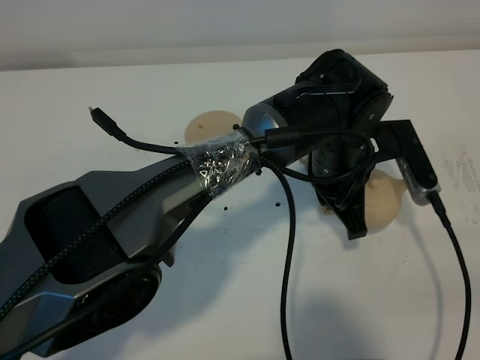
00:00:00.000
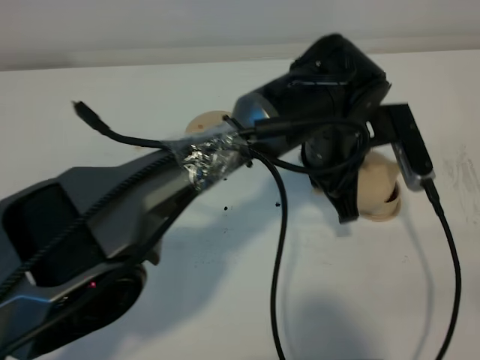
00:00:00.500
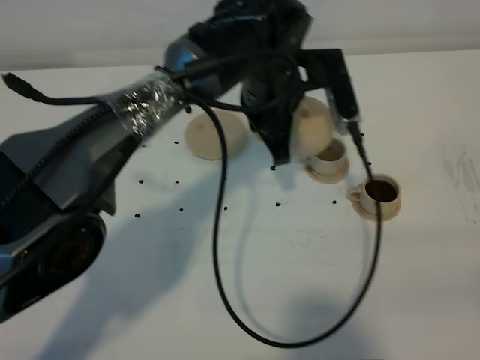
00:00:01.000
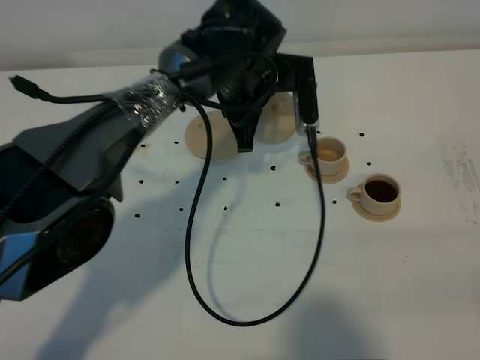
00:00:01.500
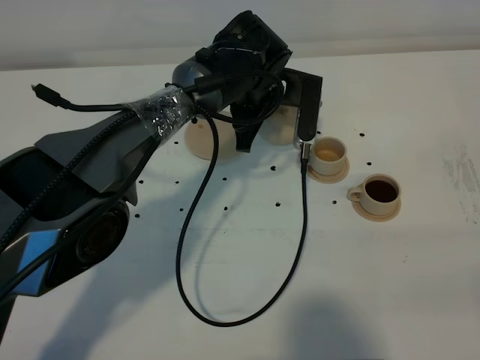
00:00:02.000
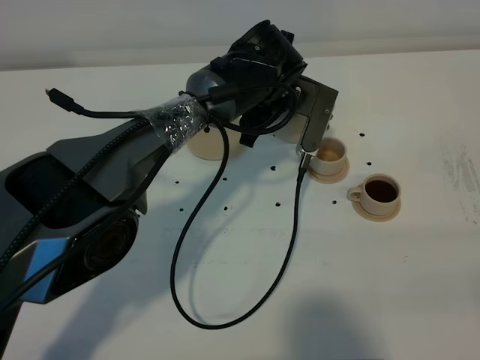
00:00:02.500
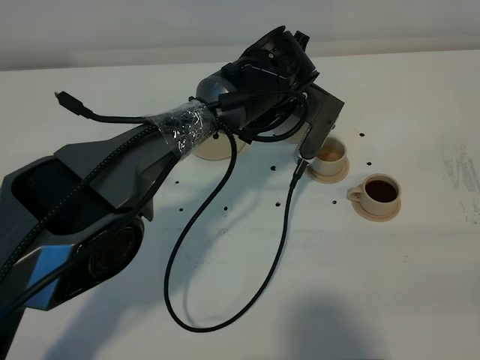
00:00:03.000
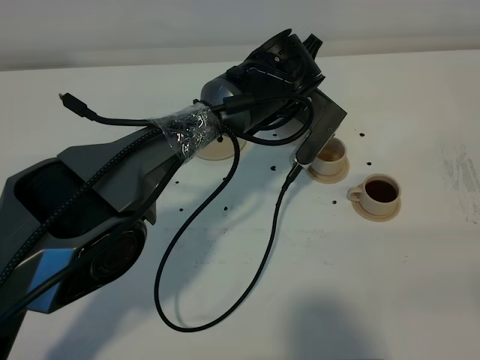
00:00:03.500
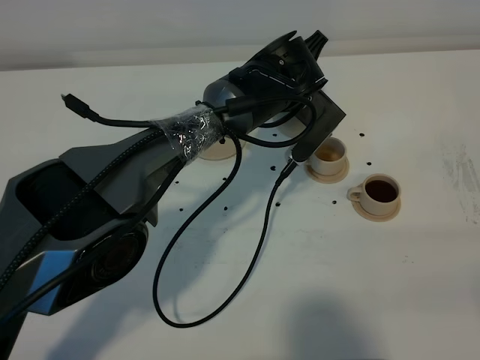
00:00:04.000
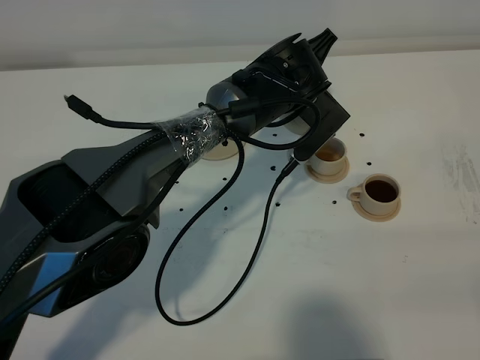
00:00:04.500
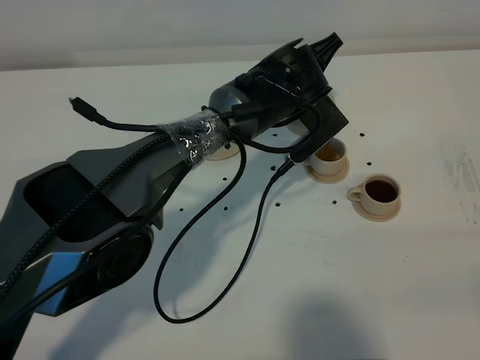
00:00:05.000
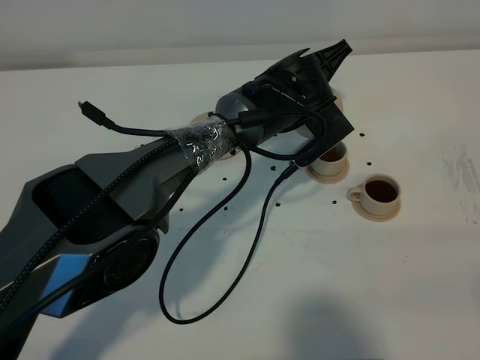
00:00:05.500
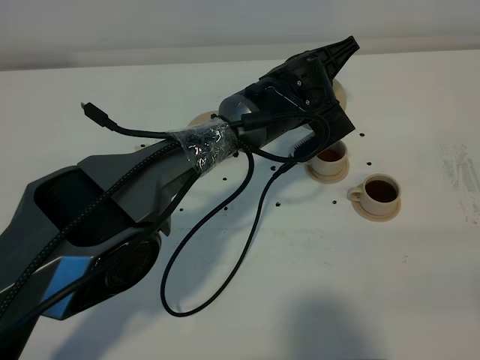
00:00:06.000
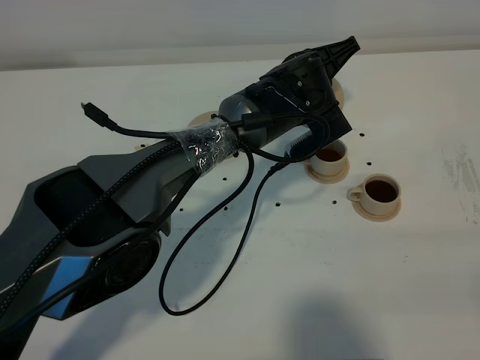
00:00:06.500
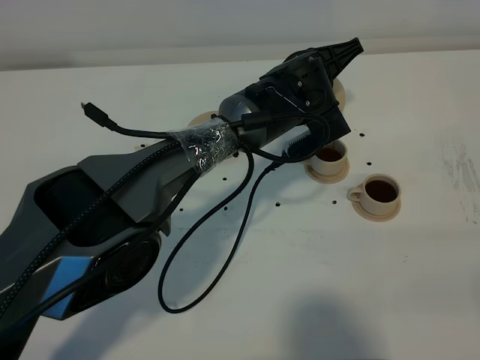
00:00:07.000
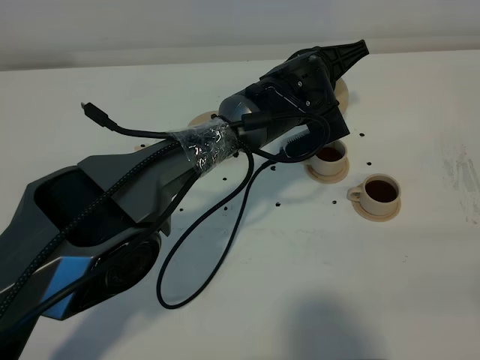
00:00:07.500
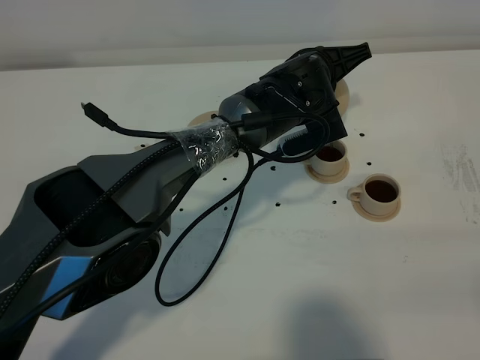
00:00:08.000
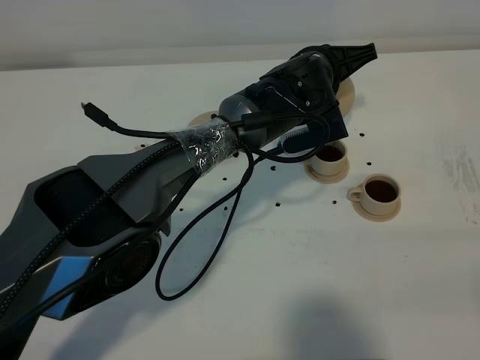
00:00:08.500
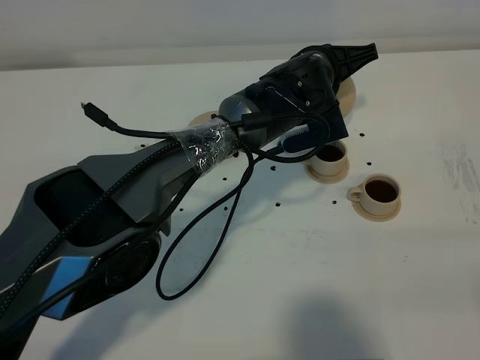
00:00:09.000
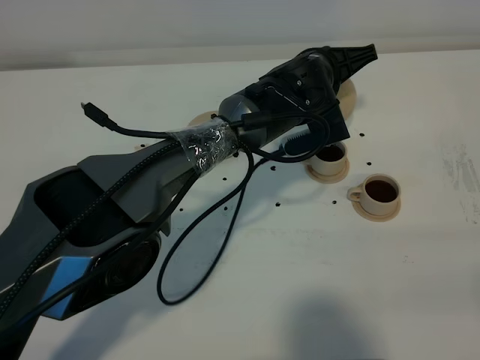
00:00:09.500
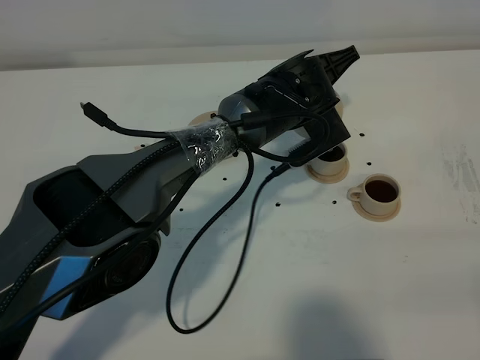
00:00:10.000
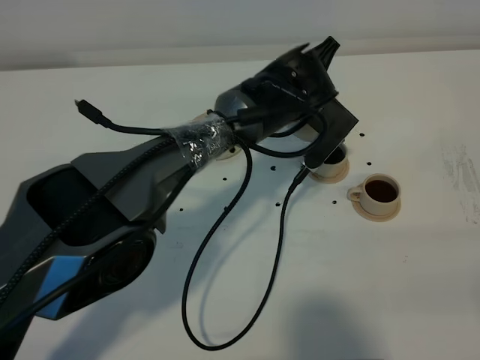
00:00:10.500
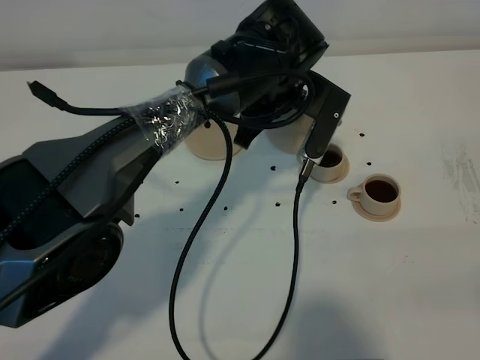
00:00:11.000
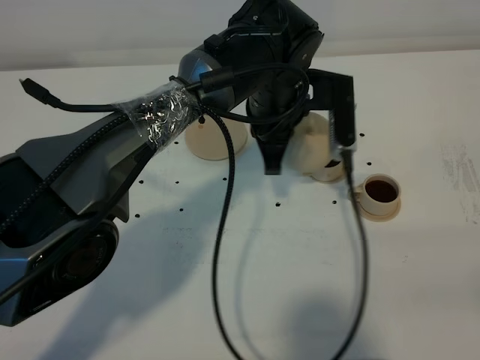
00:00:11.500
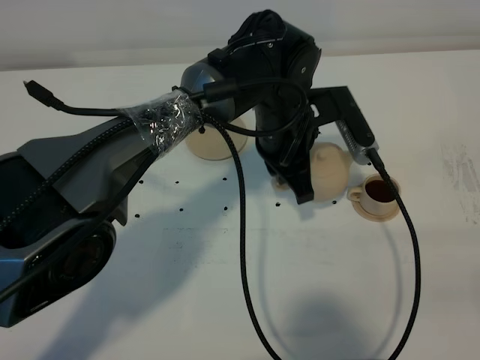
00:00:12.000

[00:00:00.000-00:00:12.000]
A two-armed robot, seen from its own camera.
Task of the whole recording: grasp the brown teapot and pour the tea into the two brown teacups one by one, put the brown teapot back in its original place.
Step, 00:00:00.000 to 00:00:10.000: Pour tea into the teacup with the left gripper.
00:00:00.000 to 00:00:02.000: The left gripper is displaced forward and to the left by some 15 cm.
00:00:04.000 to 00:00:06.000: There are only small adjustments of the grippers.
00:00:06.000 to 00:00:10.000: There are only small adjustments of the grippers.
00:00:10.000 to 00:00:12.000: The left gripper is displaced backward by about 5 cm.

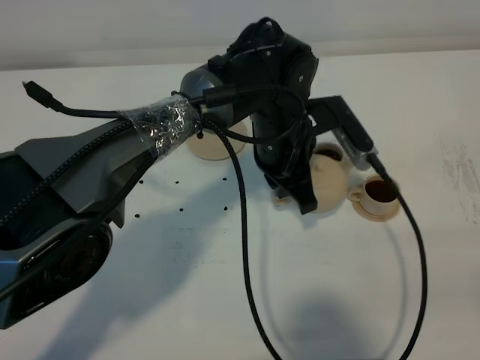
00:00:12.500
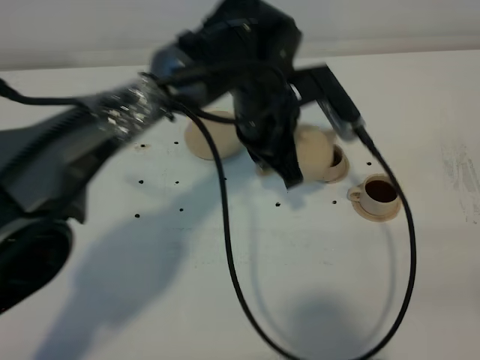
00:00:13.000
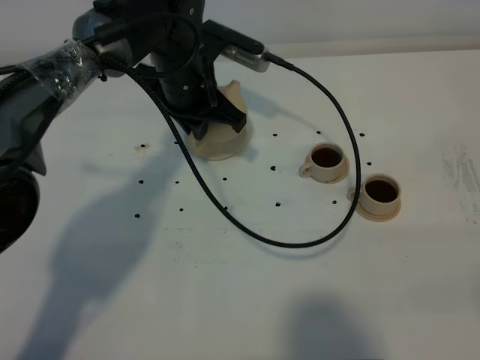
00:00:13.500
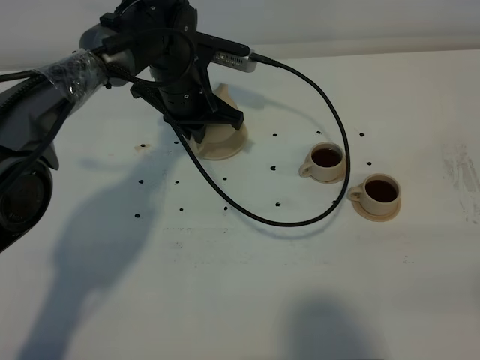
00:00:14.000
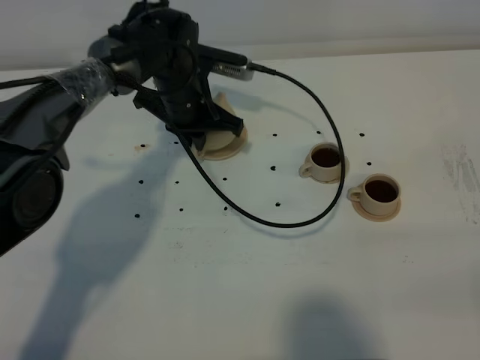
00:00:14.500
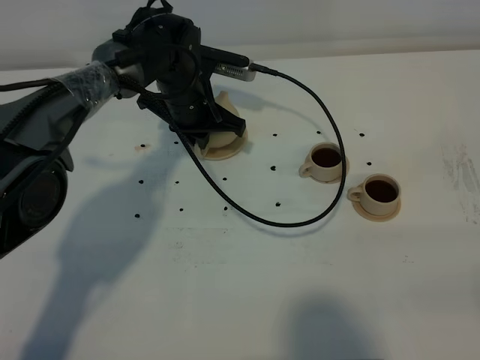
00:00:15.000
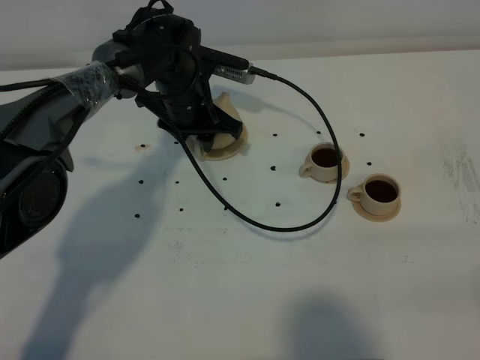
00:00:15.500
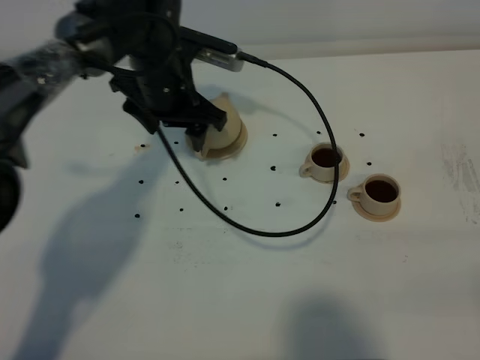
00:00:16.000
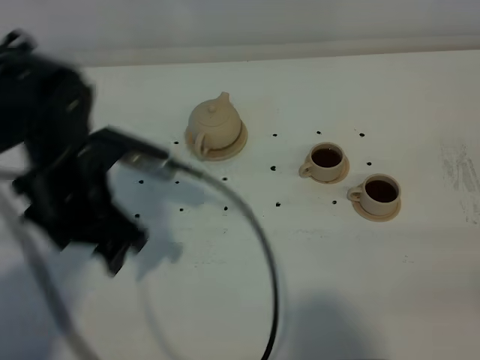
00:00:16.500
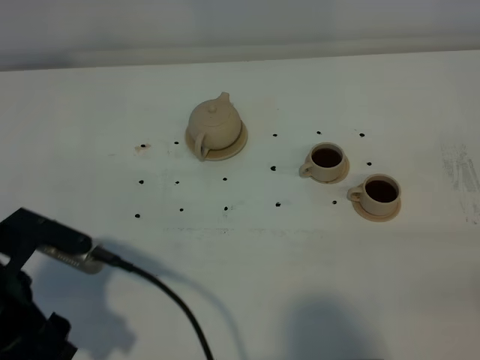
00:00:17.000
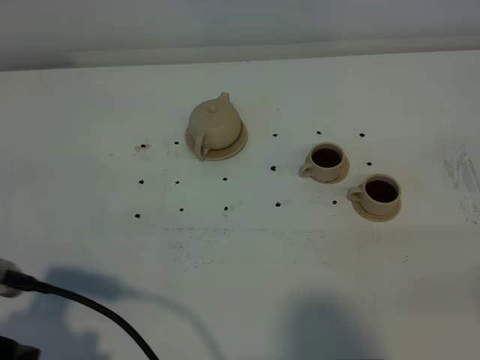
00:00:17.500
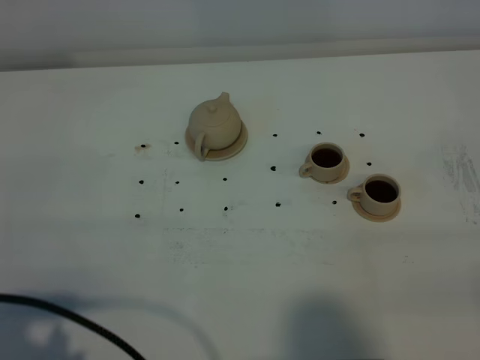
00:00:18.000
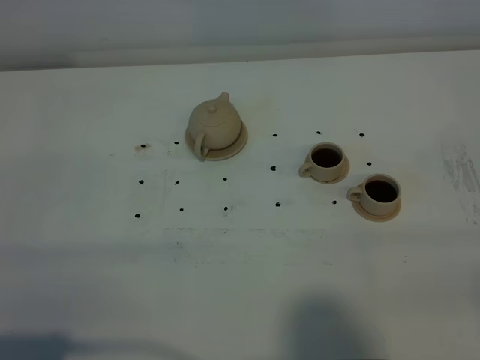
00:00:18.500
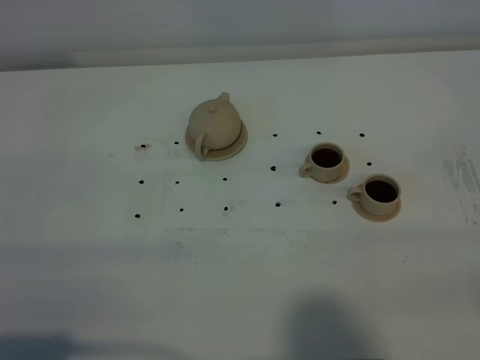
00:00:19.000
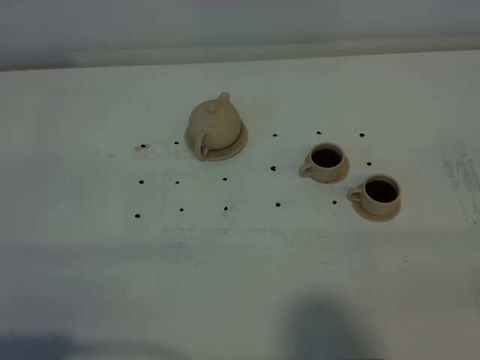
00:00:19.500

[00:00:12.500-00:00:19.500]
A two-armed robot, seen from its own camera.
Task of the whole recording: grasp the brown teapot and pour the tea into the two brown teacups one by one, put the brown teapot back in its original place.
00:00:12.500 to 00:00:14.500: The left gripper is displaced to the left and forward by roughly 15 cm.
00:00:14.500 to 00:00:16.000: The left gripper goes some 5 cm upward, and opens up.
00:00:16.000 to 00:00:17.500: The left gripper is displaced backward and to the left by about 35 cm.
00:00:17.500 to 00:00:19.500: The left gripper goes about 10 cm backward.

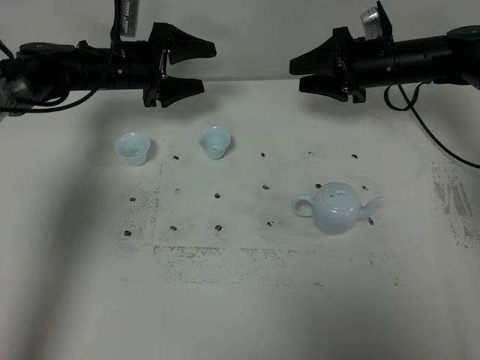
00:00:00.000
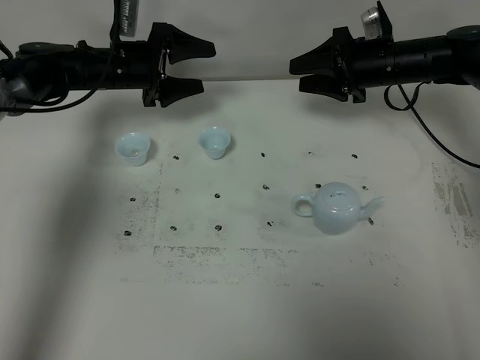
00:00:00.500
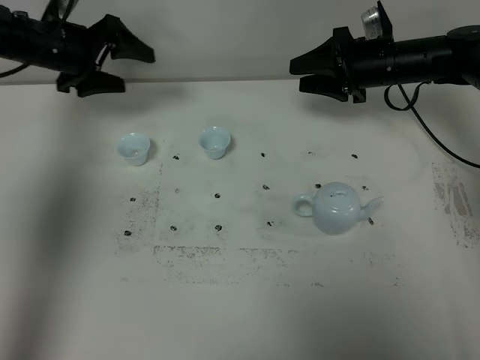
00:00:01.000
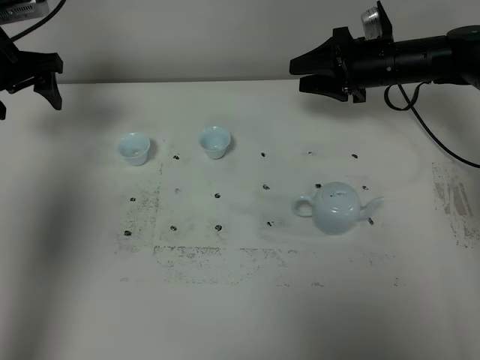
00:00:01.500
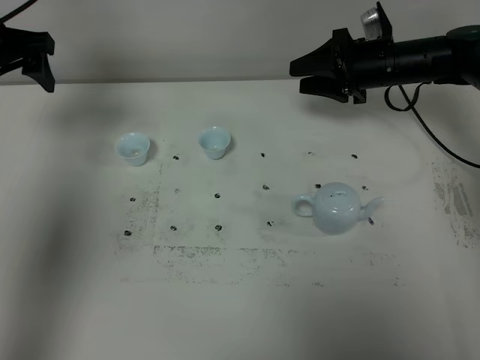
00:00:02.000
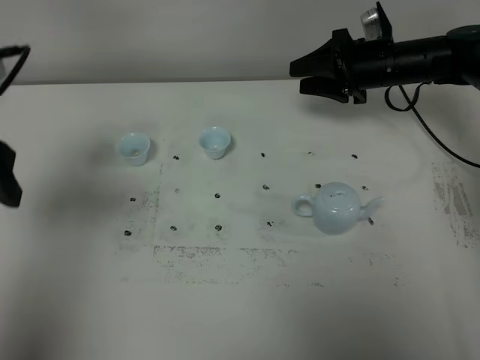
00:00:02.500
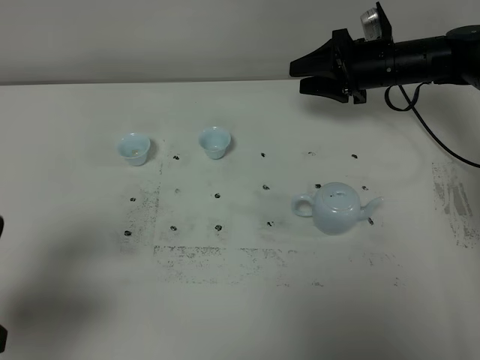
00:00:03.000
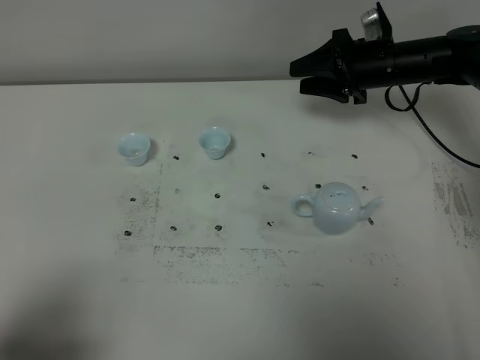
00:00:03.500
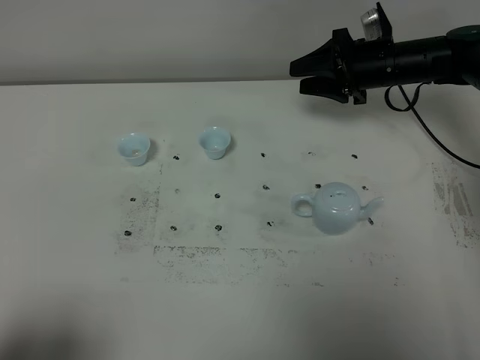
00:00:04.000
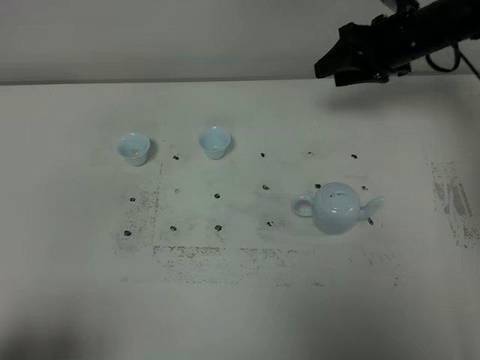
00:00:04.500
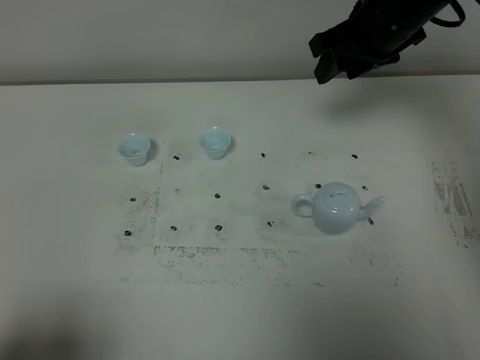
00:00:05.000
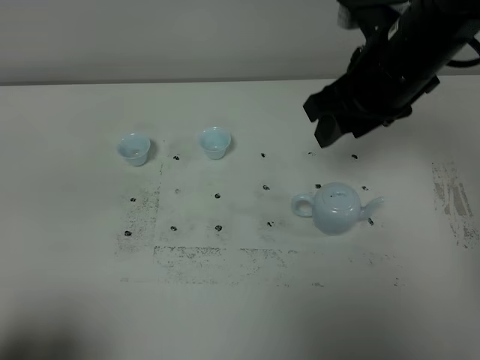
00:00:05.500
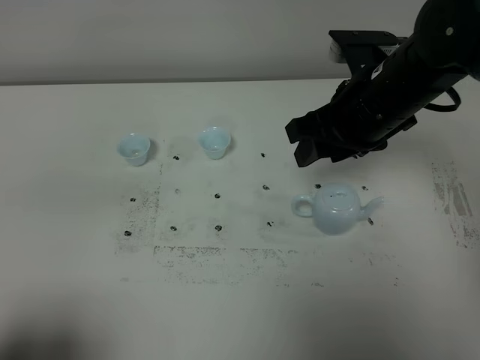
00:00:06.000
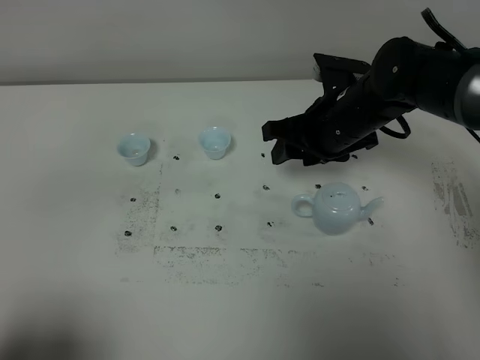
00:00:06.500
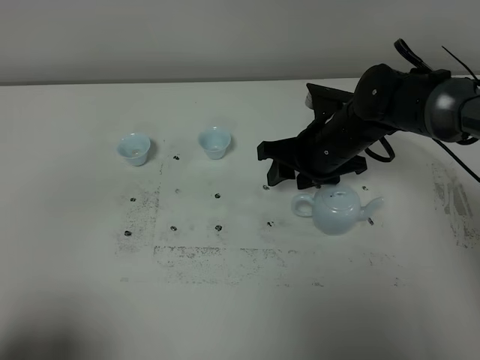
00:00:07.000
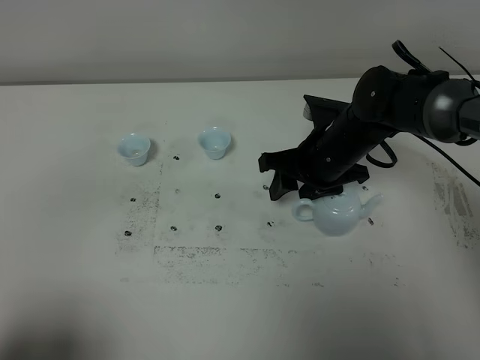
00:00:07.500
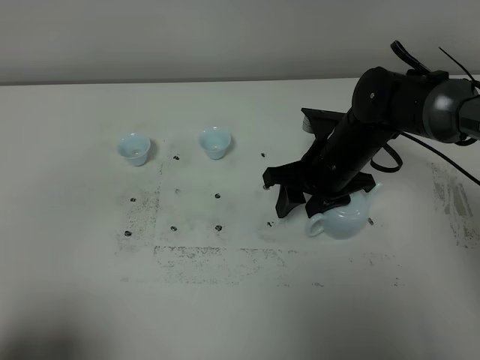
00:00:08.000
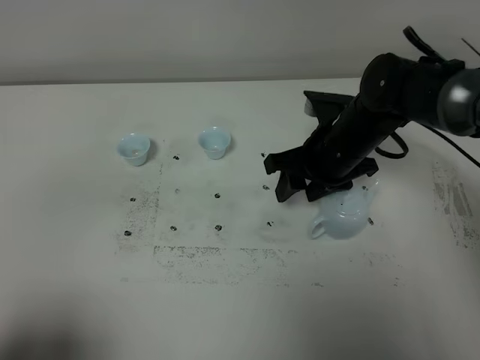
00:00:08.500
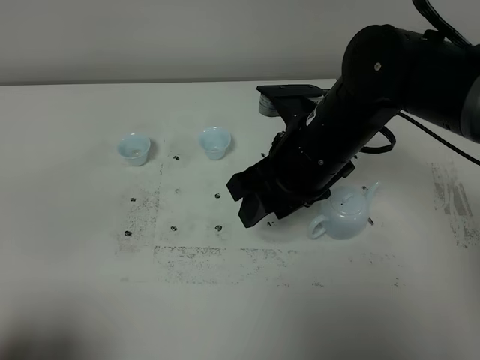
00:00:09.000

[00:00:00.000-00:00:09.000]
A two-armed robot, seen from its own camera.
Task of the whole recording: grasp the blue porcelain teapot and pour the tea into the two blue porcelain teacups one by one, put the blue porcelain teapot back in its original place.
00:00:00.000 to 00:00:02.000: The left gripper is displaced upward, to the left and backward by approximately 20 cm.
00:00:02.000 to 00:00:04.500: The left gripper travels backward by some 40 cm; the right gripper is displaced upward by roughly 5 cm.
00:00:04.500 to 00:00:07.000: The right gripper shifts about 15 cm to the left, backward and downward.
00:00:07.000 to 00:00:09.000: The right gripper is displaced upward and backward by approximately 15 cm.
